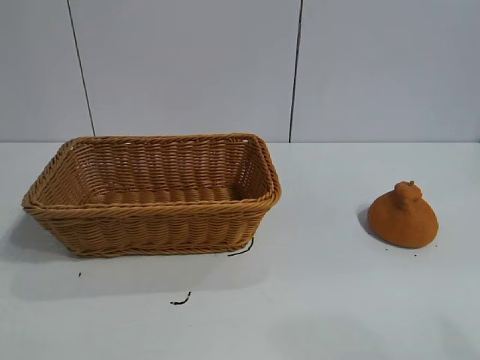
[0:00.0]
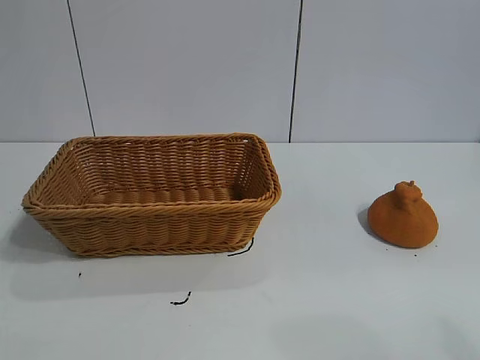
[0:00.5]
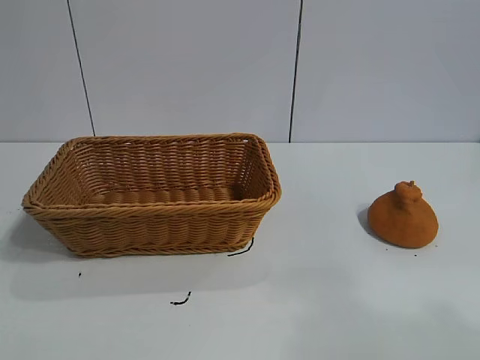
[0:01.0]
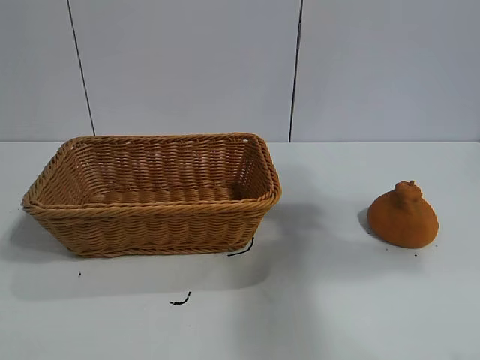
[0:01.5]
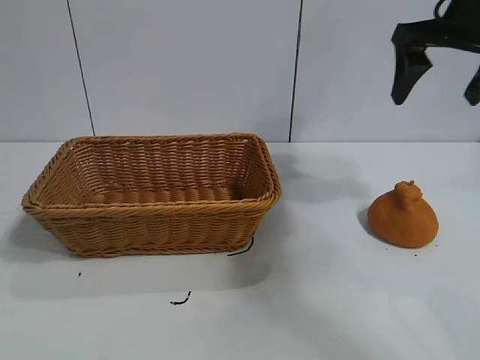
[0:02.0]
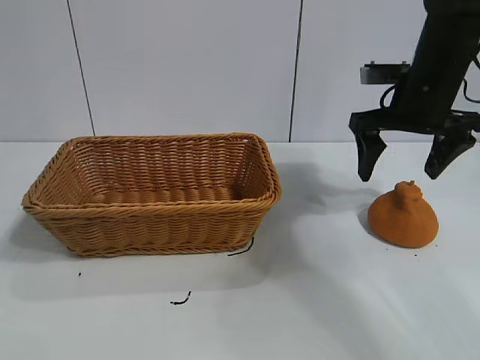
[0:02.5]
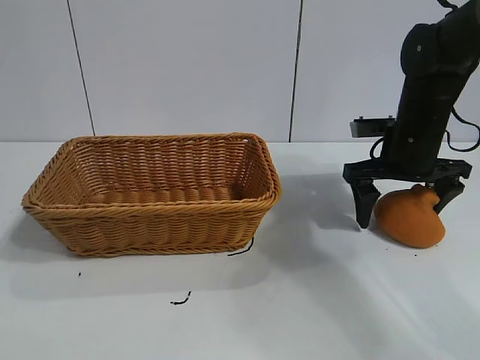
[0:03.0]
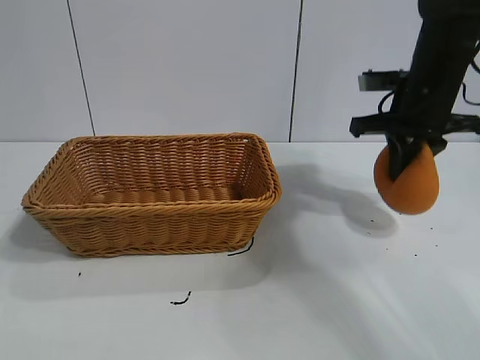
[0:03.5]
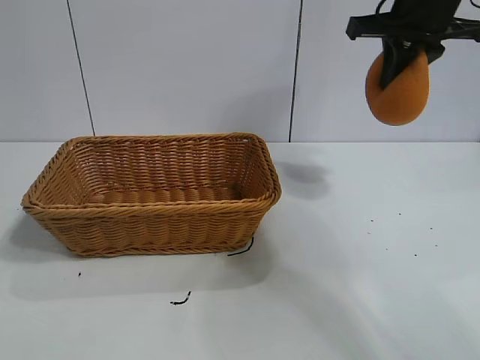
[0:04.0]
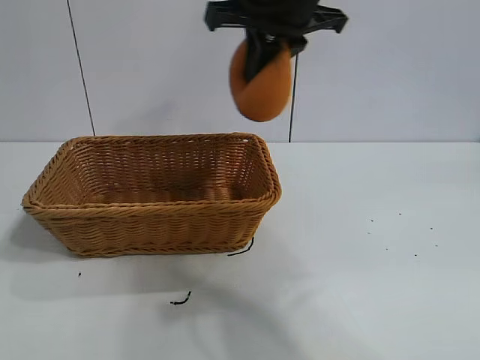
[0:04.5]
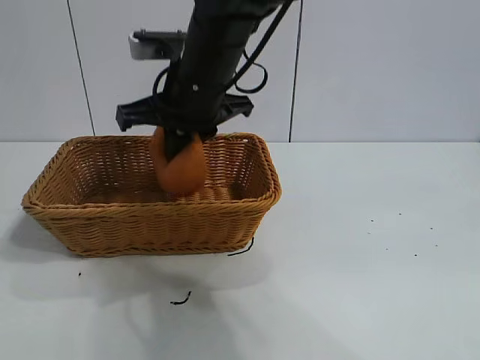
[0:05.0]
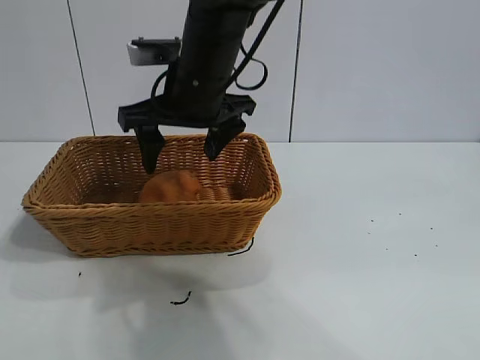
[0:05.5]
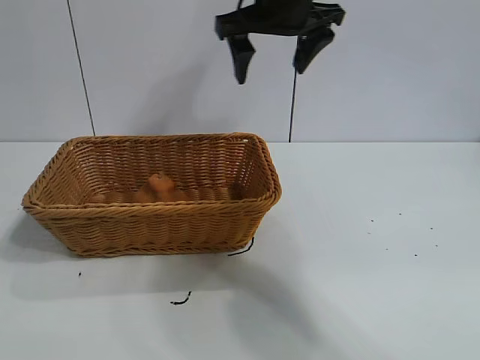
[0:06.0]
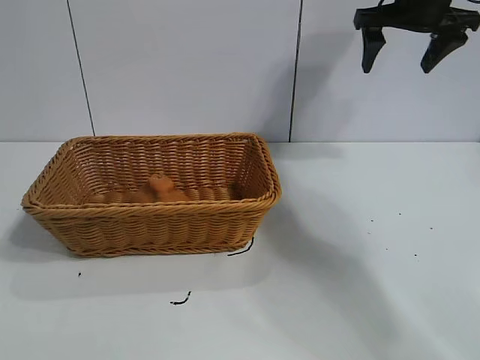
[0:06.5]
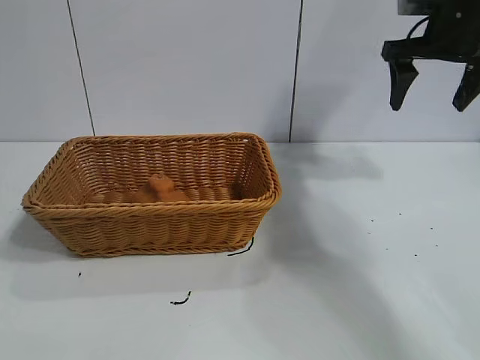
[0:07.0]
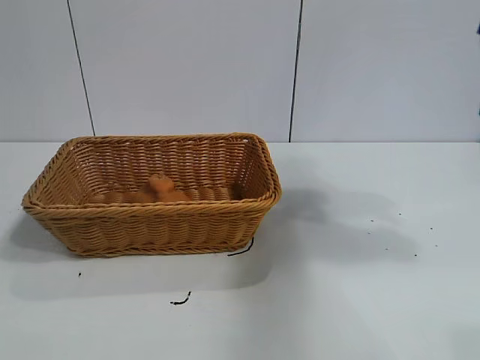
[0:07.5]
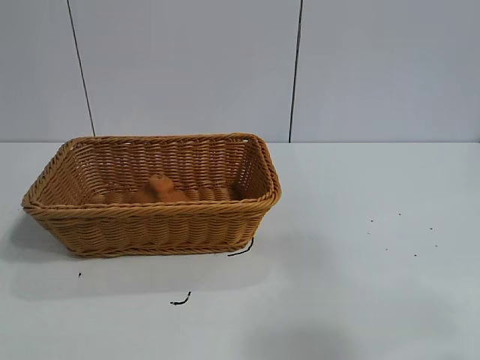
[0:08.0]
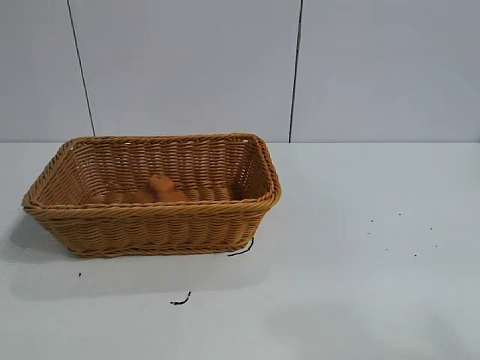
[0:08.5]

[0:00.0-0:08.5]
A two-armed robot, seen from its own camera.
Task of the whole recording: pick up the orange and put it into the basket.
Step, 0:01.0 to 0:03.0: Grasp the orange with right gripper.
Step, 0:03.5 to 0:05.0: Place the orange in the basket with right gripper.

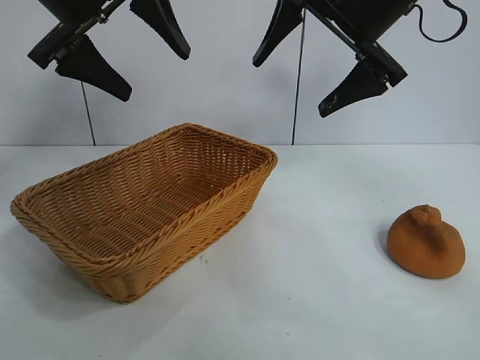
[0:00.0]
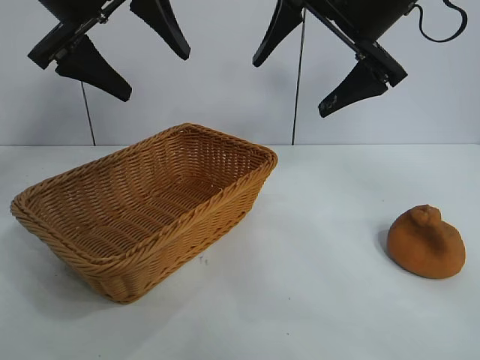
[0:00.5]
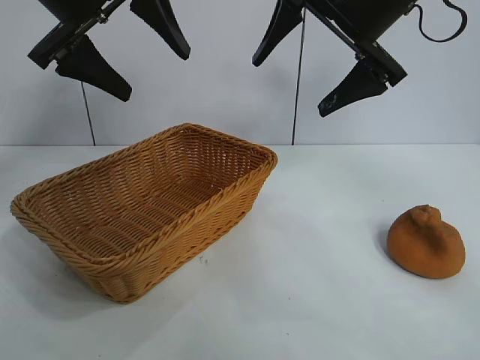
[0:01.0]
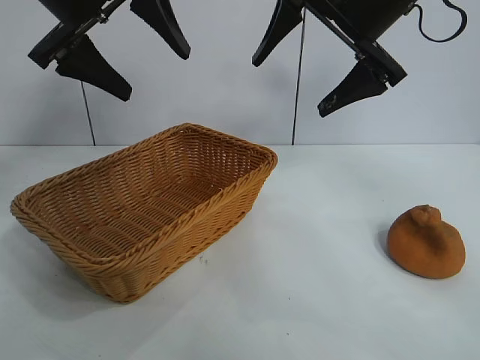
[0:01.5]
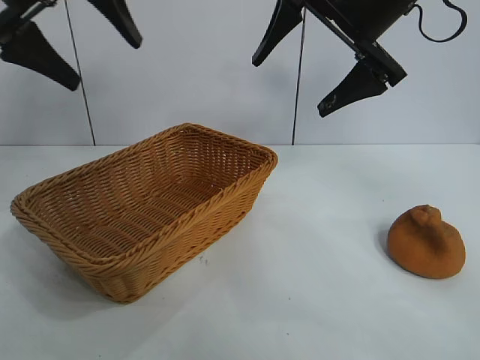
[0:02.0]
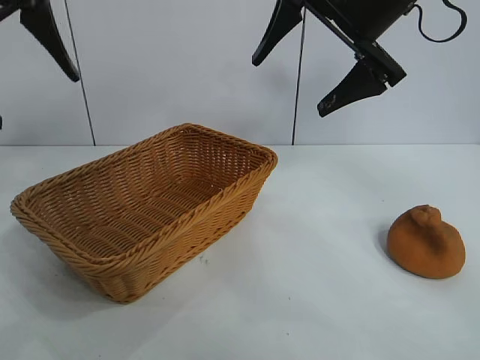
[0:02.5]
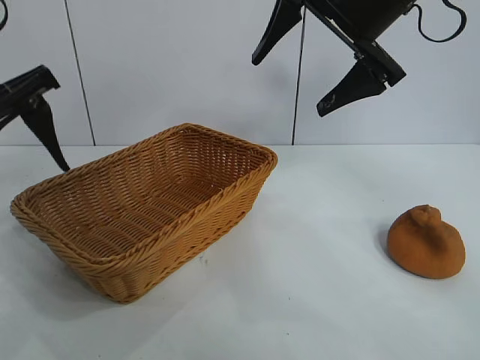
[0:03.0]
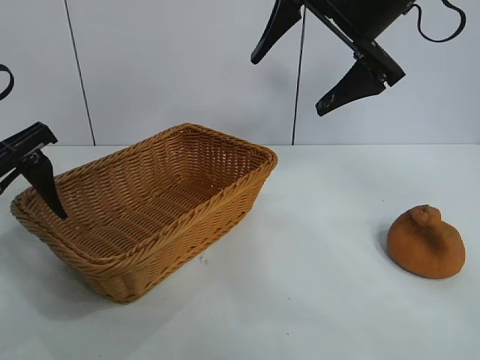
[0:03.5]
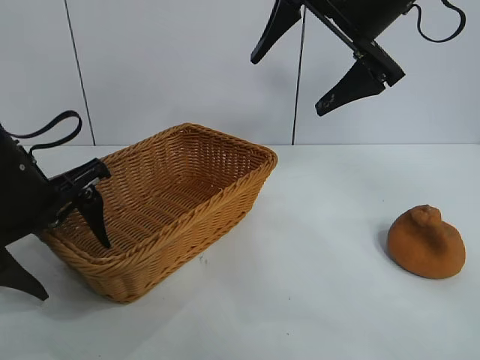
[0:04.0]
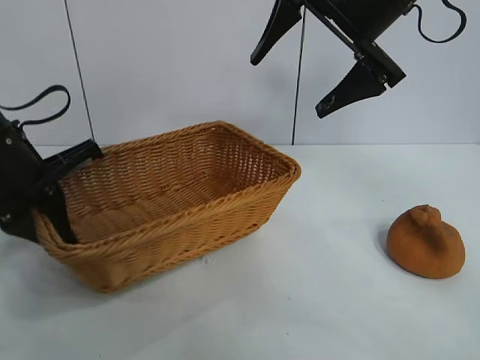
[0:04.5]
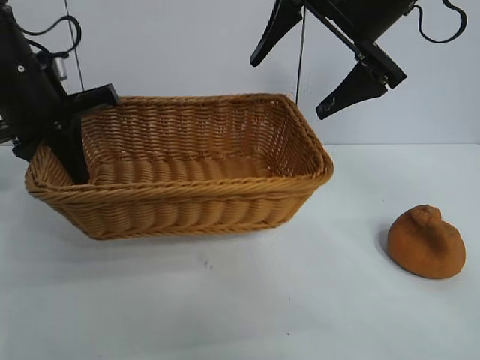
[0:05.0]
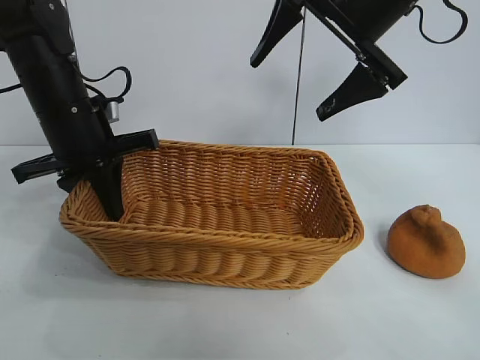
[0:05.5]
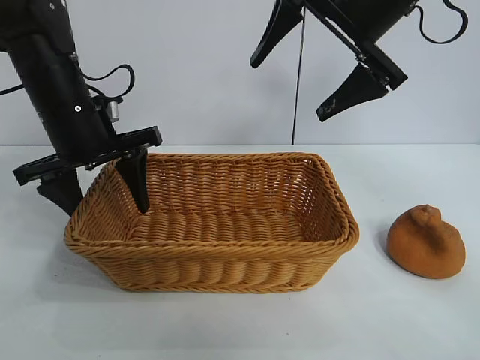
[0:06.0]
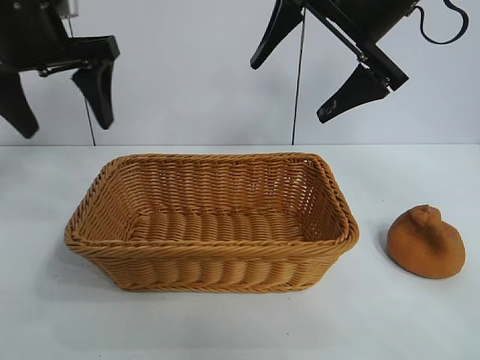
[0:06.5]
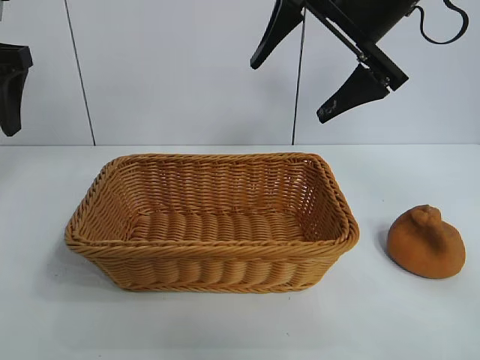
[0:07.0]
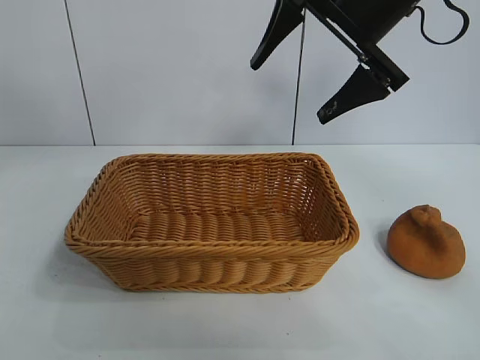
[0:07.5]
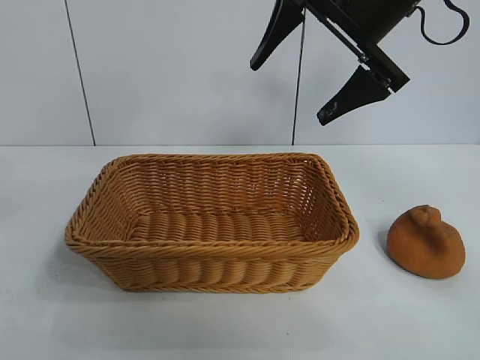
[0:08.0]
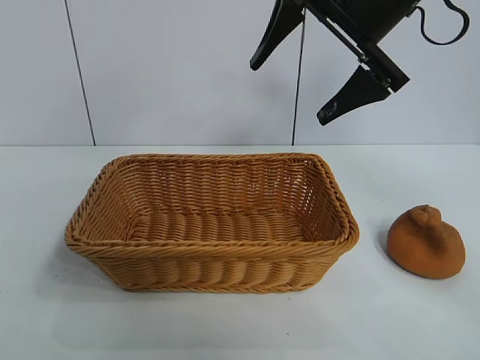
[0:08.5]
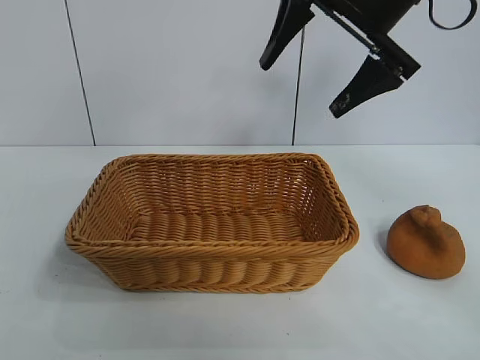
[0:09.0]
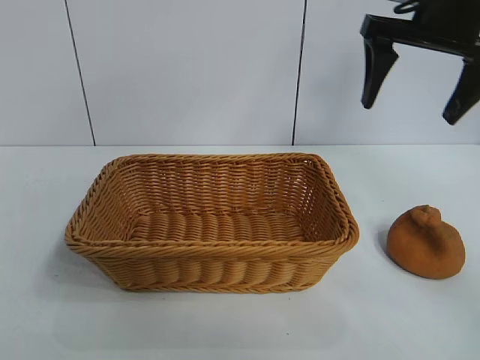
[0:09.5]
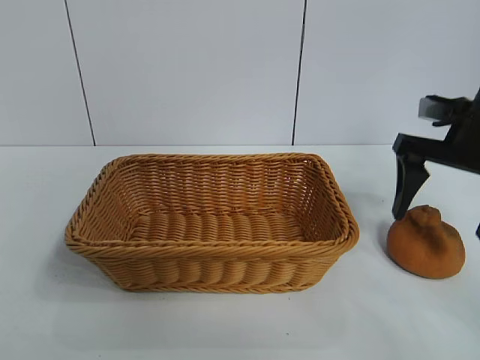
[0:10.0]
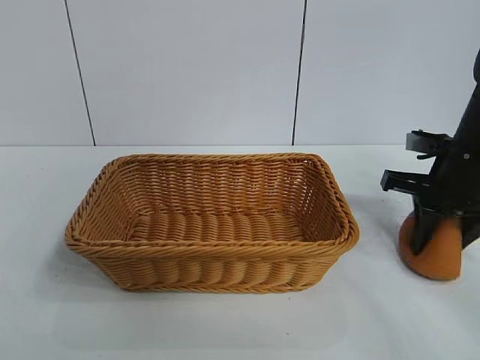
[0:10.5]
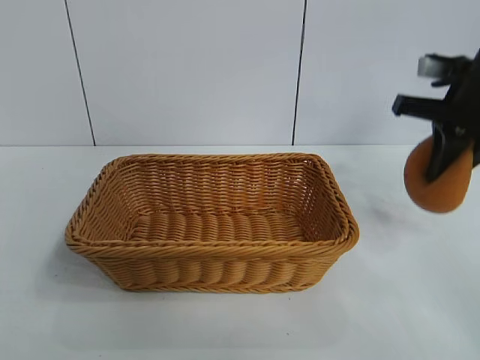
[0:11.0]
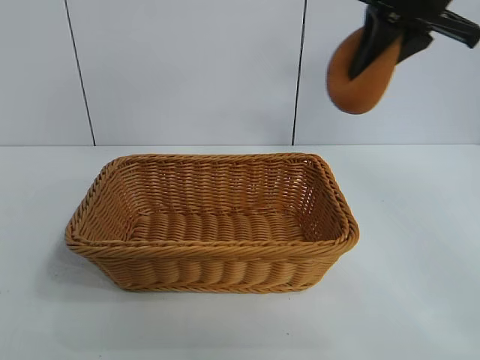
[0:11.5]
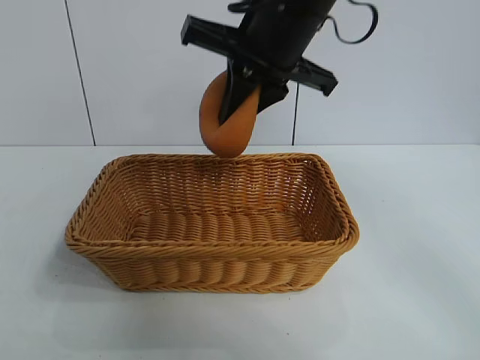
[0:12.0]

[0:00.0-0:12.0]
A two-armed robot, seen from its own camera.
Task of the whole recording: pick up the orange and put it into the basket.
Step, 0:01.5 to 0:04.0: Grasp the basket with left gripper.
Step, 0:04.5 to 0:06.0: Place the basket in the center of view with left gripper.
Step, 0:06.5 to 0:10.5: Grasp the orange with right gripper.

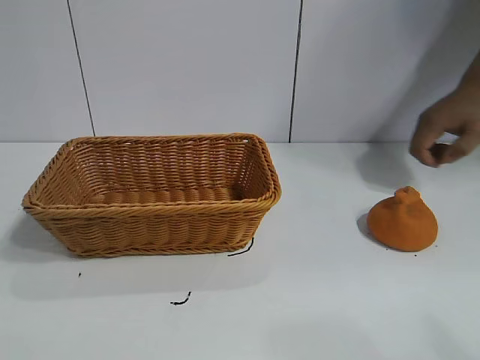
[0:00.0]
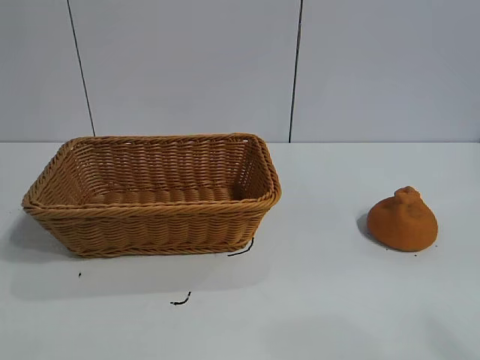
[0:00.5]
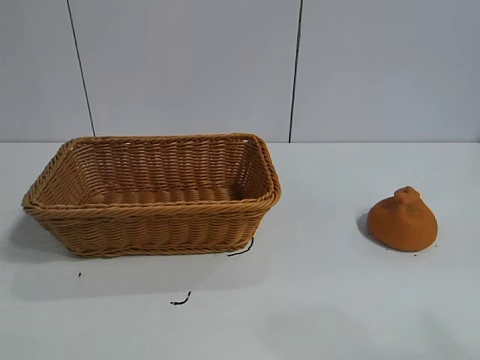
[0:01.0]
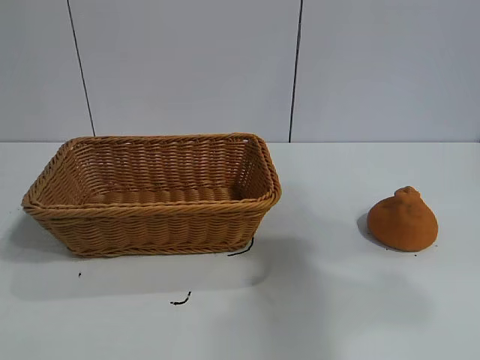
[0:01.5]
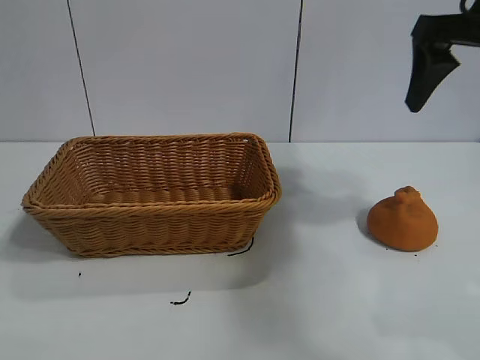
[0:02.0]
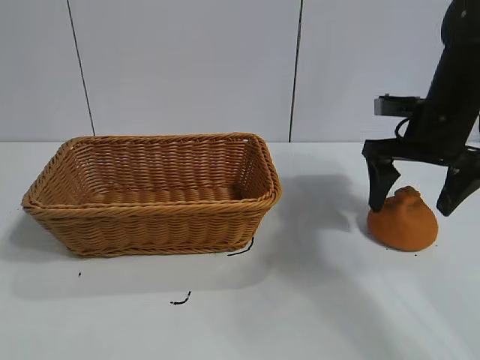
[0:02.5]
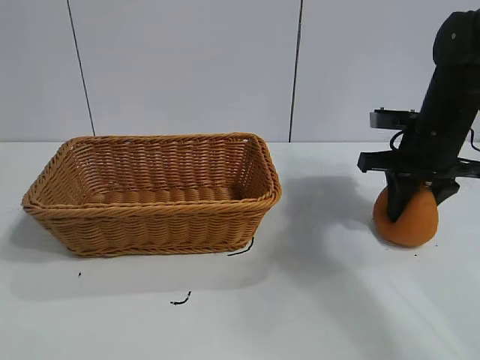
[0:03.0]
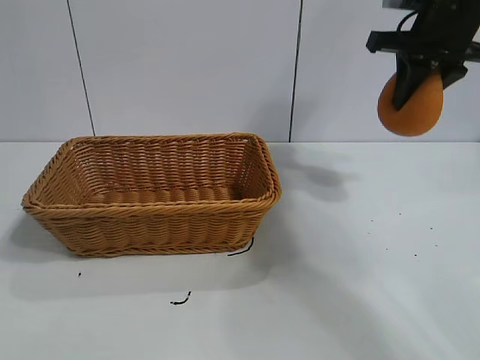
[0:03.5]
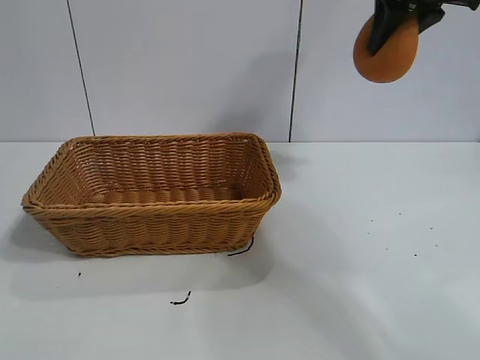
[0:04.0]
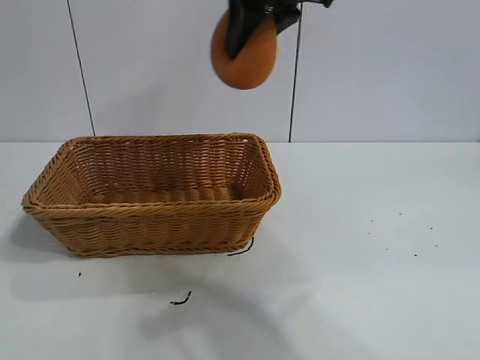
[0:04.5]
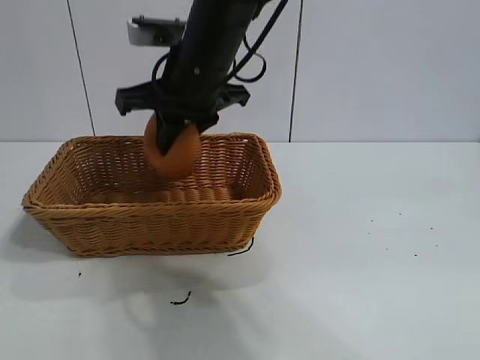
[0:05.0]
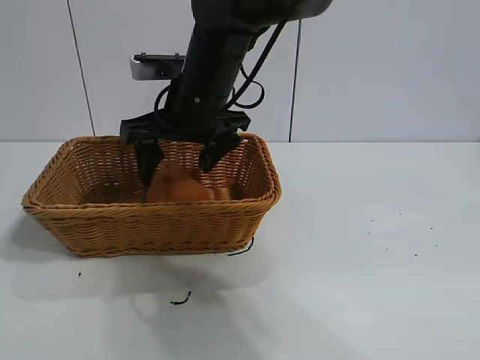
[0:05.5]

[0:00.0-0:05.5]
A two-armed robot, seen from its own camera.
Task of the whole recording: pick up the orange and put it into the basket.
Step, 0:01.0 to 0:03.0: Grasp the orange with right gripper.
